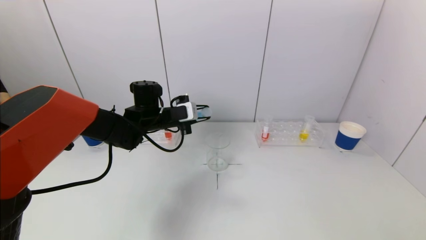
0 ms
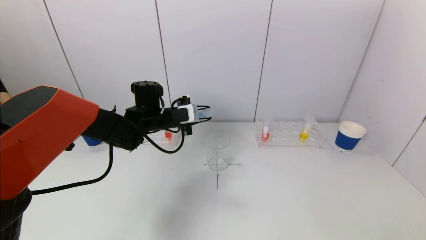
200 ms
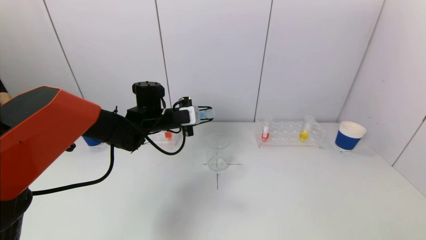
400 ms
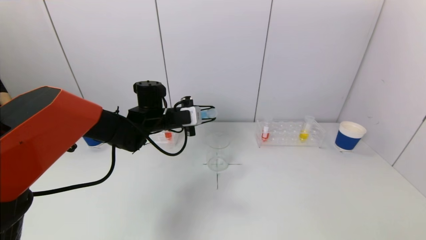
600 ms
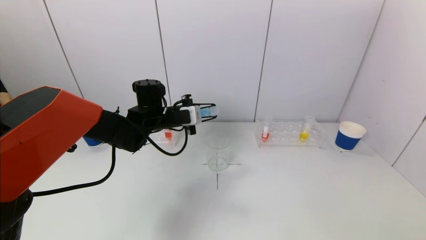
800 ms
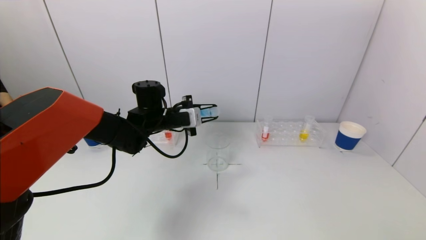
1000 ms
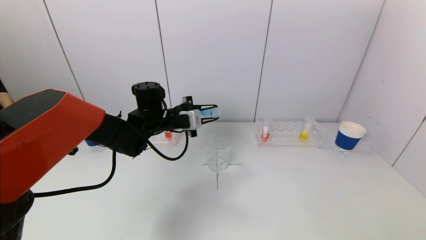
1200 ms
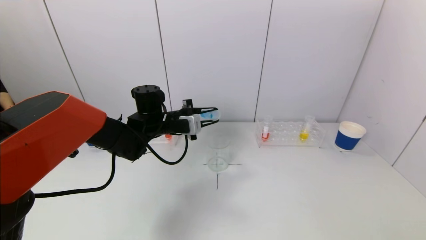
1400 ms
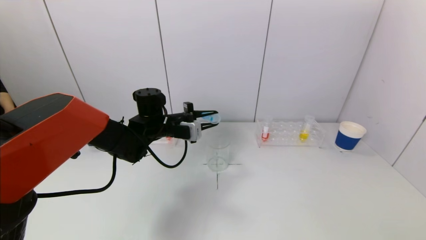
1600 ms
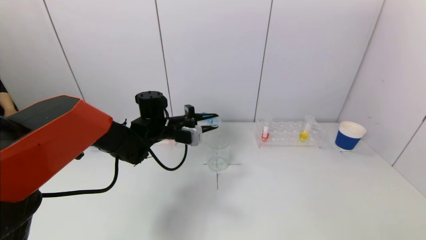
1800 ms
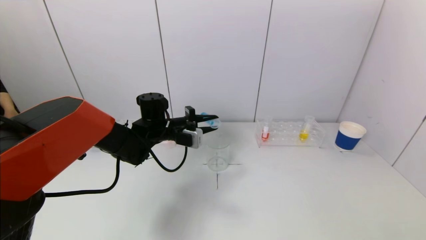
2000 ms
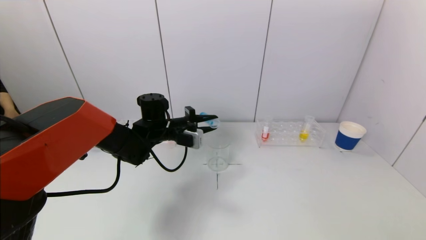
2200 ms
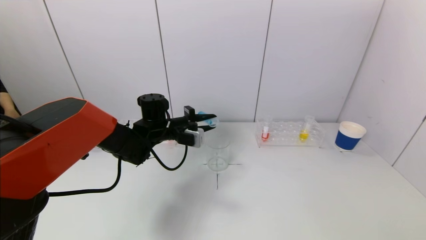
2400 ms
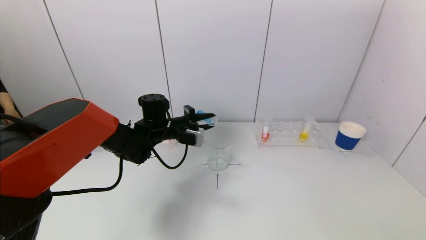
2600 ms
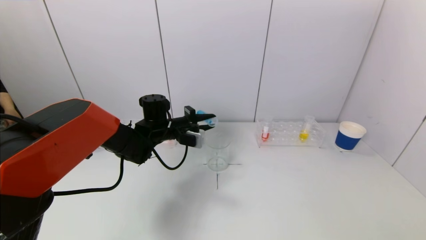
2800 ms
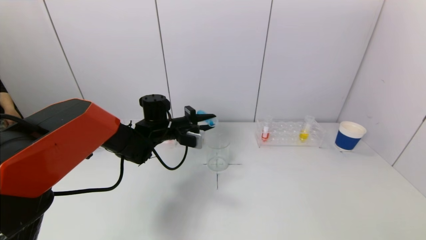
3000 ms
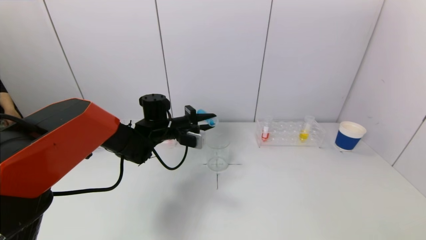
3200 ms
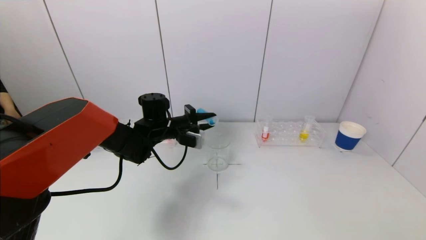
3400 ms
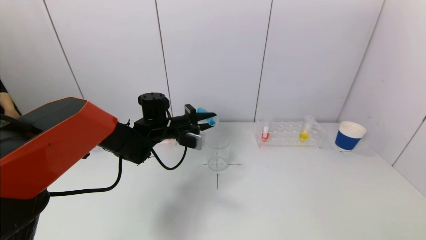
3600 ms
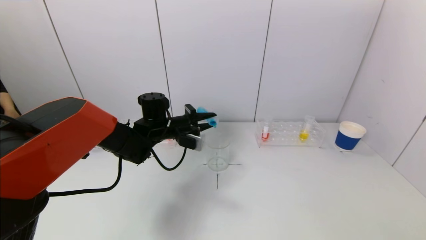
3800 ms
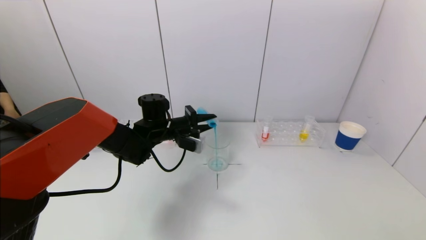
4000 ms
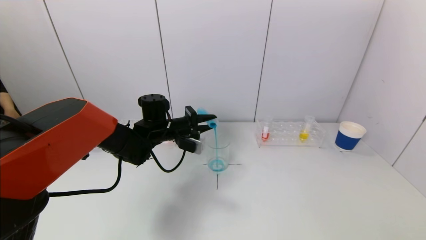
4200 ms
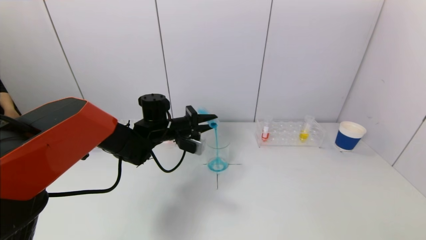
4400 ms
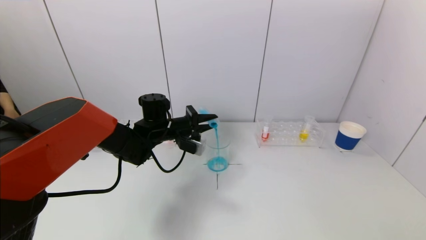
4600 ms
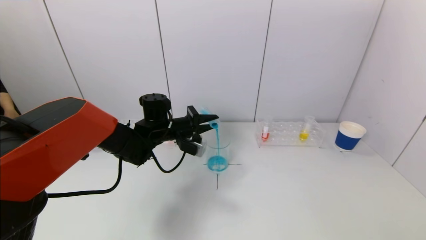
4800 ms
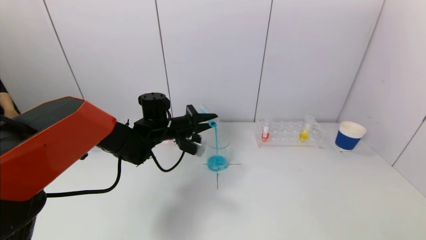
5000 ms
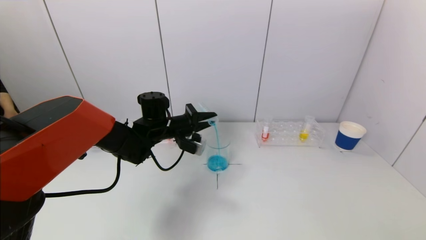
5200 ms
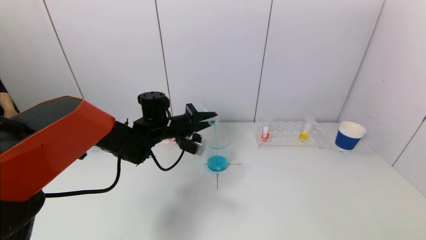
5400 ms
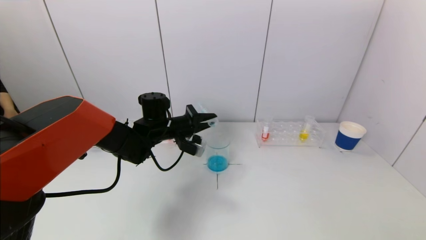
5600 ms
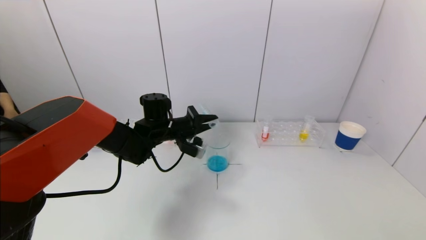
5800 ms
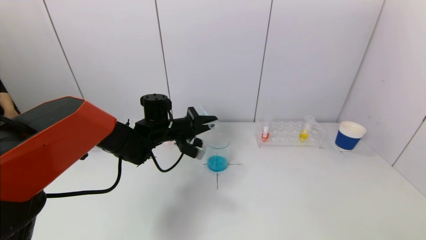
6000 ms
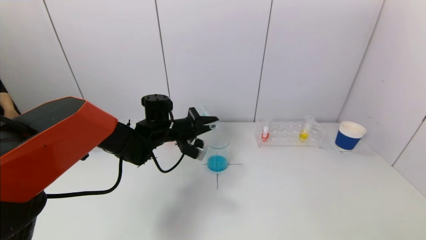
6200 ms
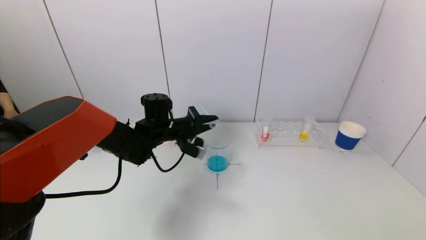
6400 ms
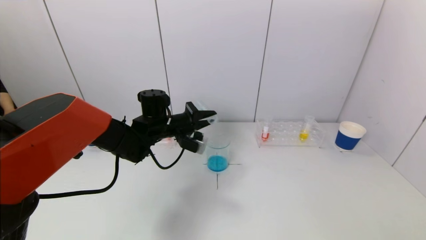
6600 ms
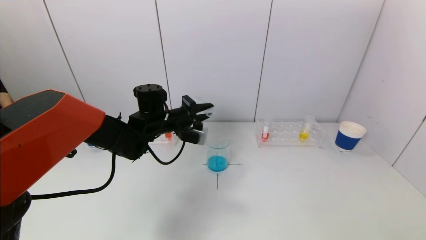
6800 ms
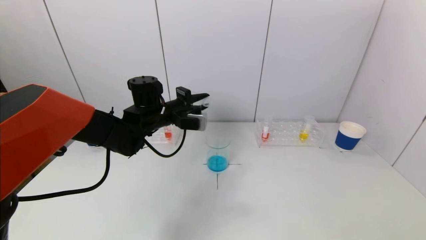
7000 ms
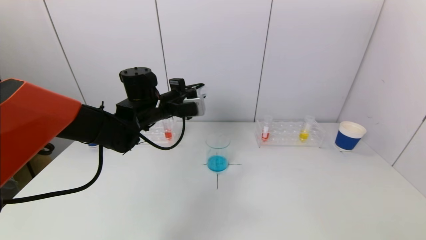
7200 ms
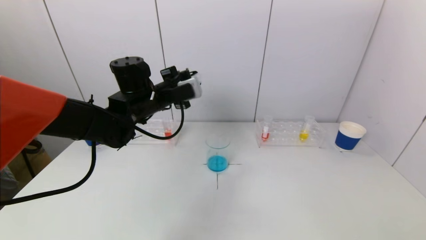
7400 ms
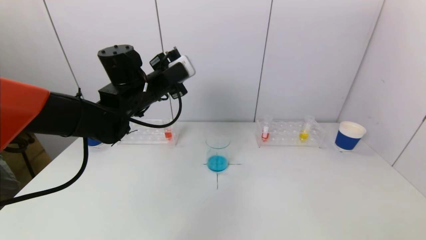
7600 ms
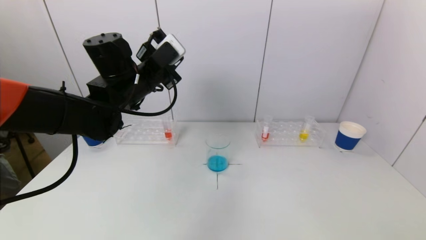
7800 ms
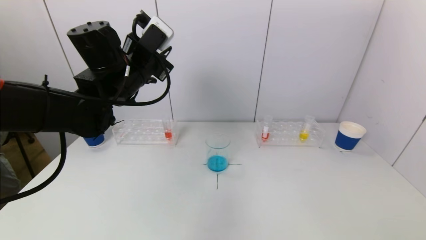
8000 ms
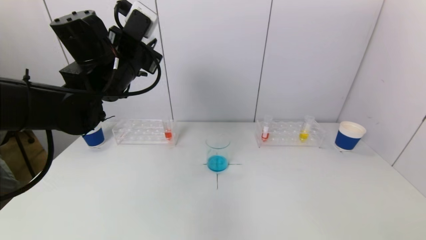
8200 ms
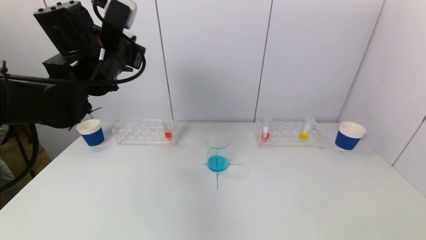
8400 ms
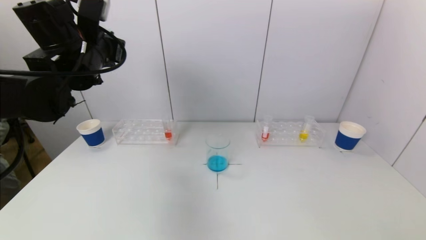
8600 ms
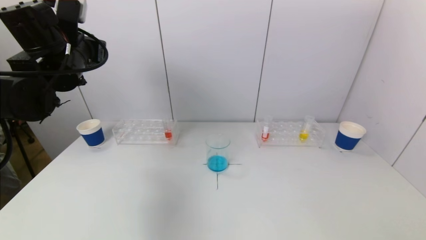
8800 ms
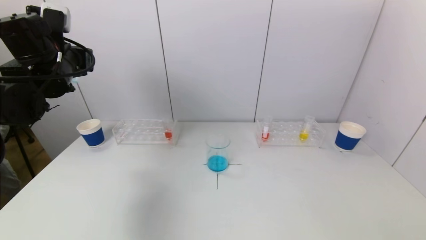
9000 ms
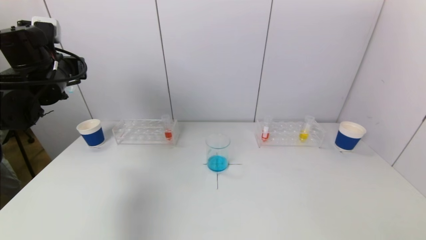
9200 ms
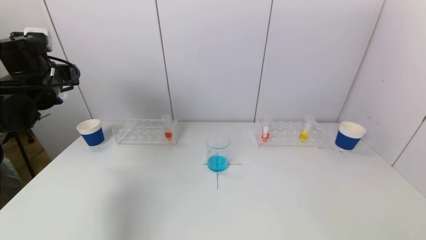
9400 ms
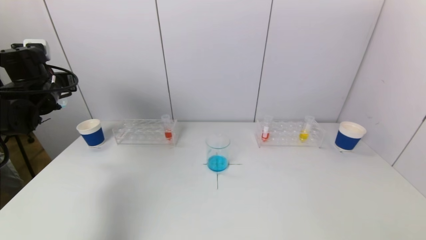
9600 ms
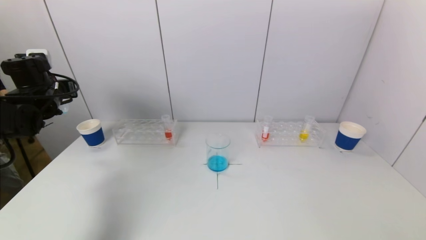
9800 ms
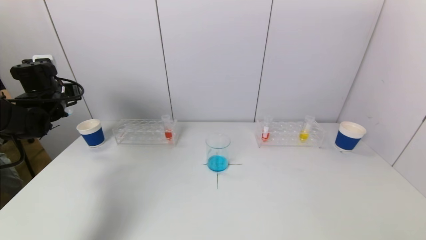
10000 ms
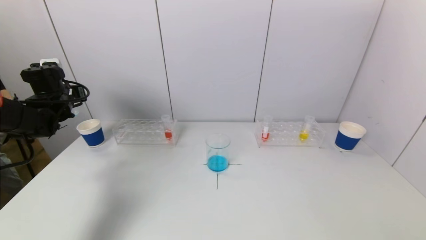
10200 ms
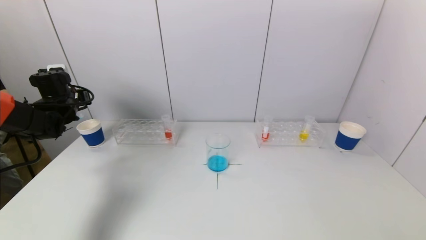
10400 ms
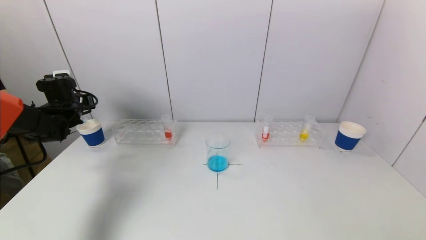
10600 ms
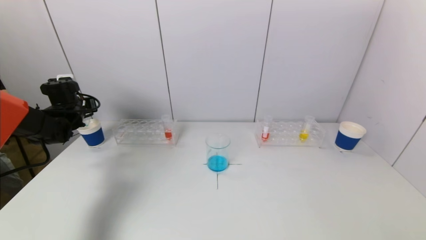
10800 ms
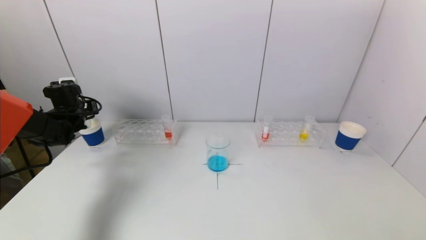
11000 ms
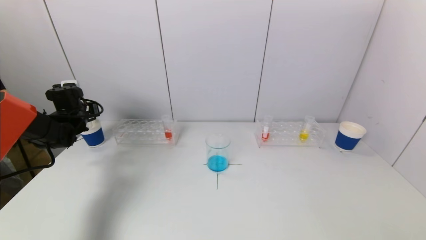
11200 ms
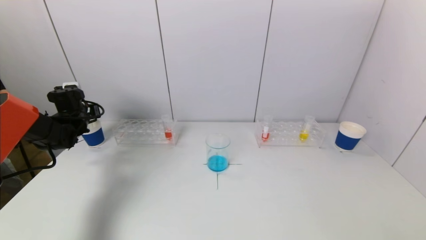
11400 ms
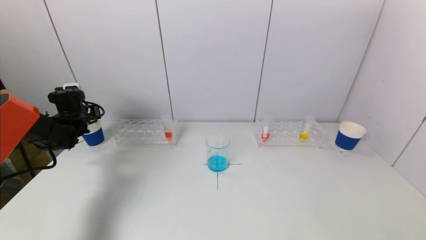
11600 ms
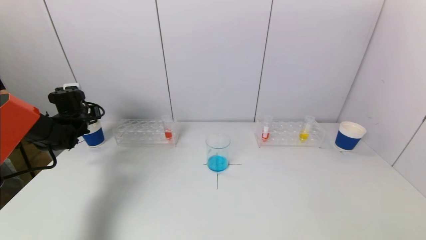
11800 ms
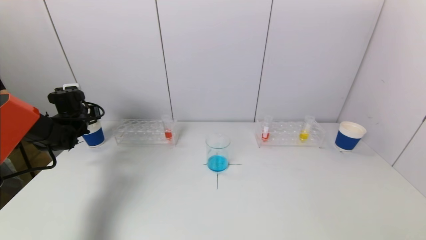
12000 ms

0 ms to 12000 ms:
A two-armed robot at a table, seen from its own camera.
Task of the whole recording: pick up a test tube with pigment on left test tube rack and a test tube with pigment on right test tube rack by grippers and pour them into the beaker.
Step, 0 ms to 5600 ms: Pour the blue reagent into the graduated cylinder with the left gripper.
0 ms to 1600 ms: The grippers move only a little.
1600 ms to 3000 ms: The grippers make only small movements.
3000 ms to 6000 ms: The grippers stay close to where they were, moving slightly.
6000 ms to 7600 ms: The left gripper heads upward, covering roughly 15 cm.
7600 ms to 9000 ms: The left gripper is displaced to the left by about 15 cm.
9000 ms to 10400 ms: The left gripper is displaced downward, to the left and forward by some 20 cm.
10400 ms to 12000 ms: The left gripper travels downward by about 5 cm.

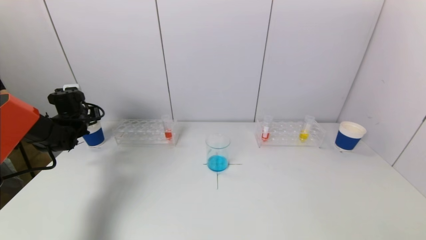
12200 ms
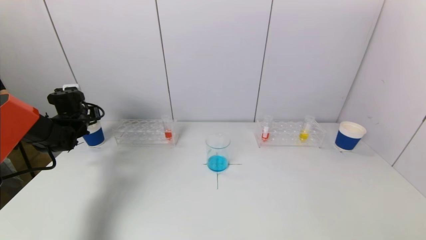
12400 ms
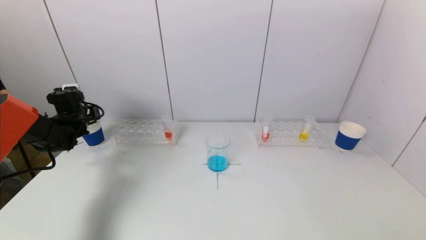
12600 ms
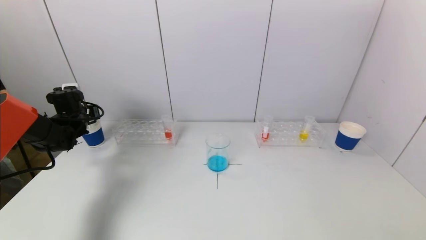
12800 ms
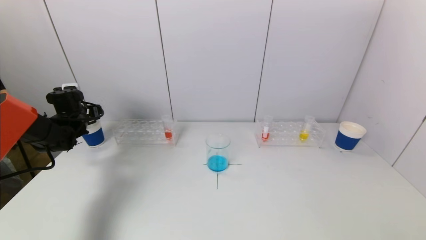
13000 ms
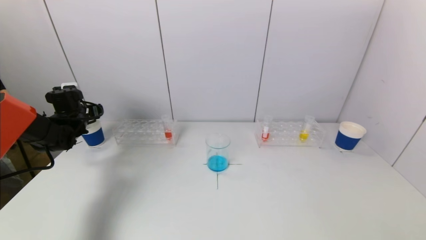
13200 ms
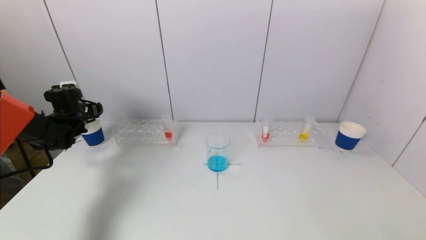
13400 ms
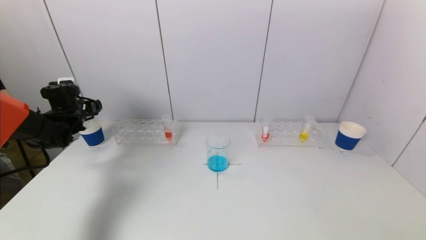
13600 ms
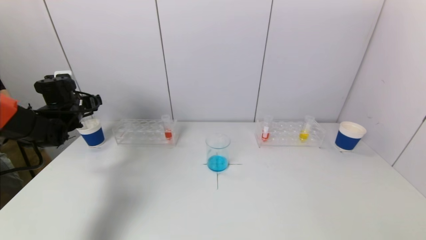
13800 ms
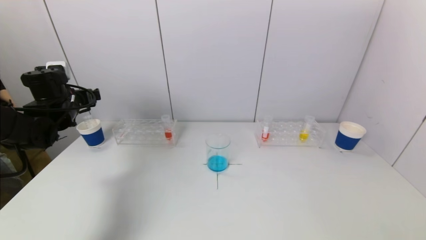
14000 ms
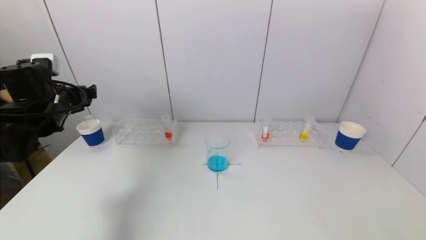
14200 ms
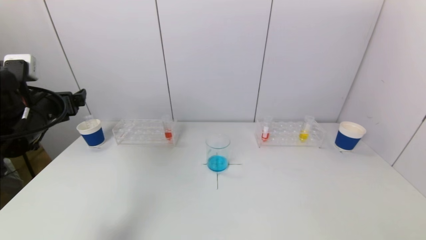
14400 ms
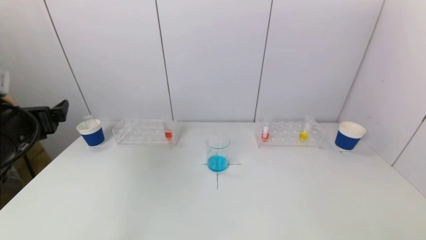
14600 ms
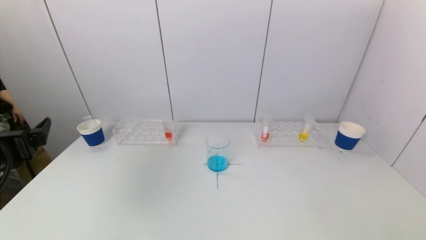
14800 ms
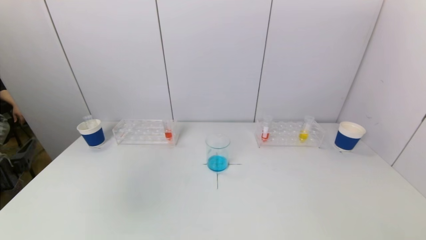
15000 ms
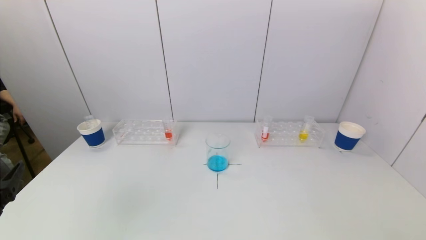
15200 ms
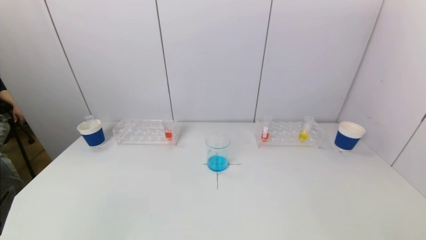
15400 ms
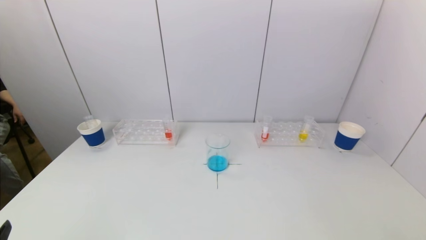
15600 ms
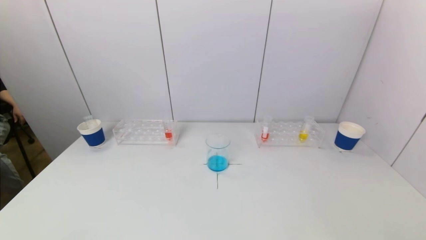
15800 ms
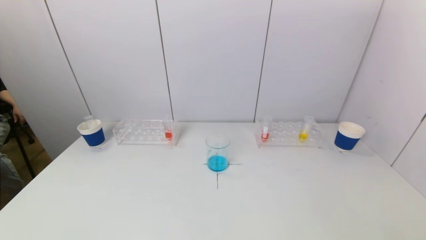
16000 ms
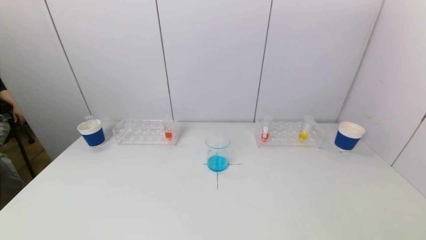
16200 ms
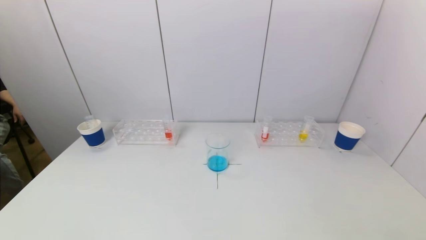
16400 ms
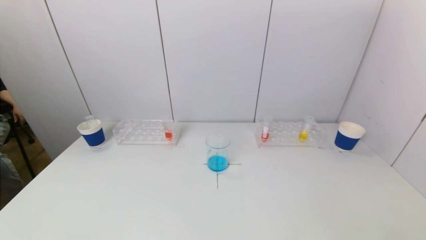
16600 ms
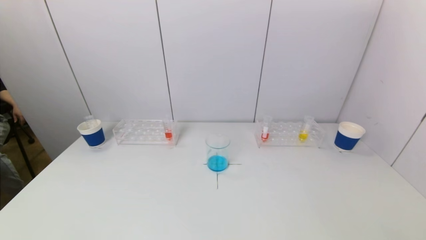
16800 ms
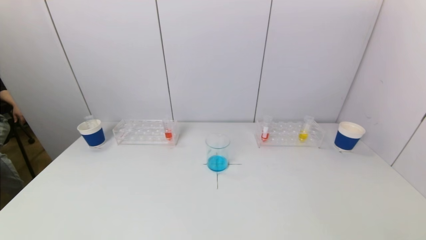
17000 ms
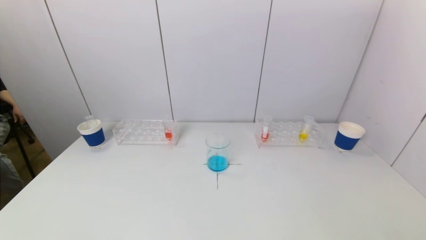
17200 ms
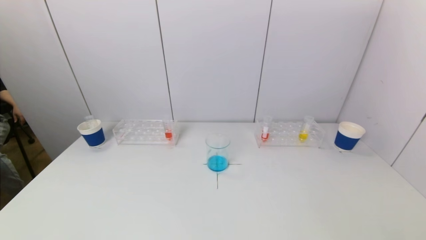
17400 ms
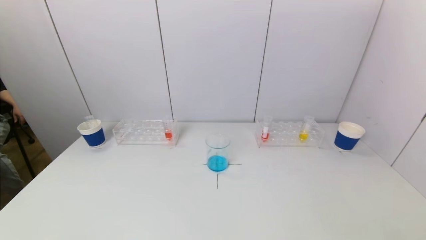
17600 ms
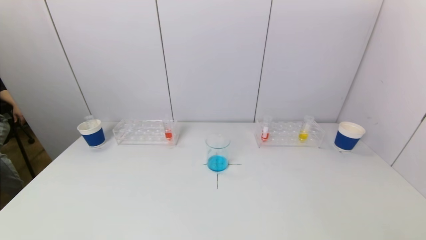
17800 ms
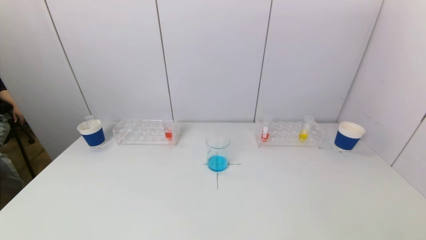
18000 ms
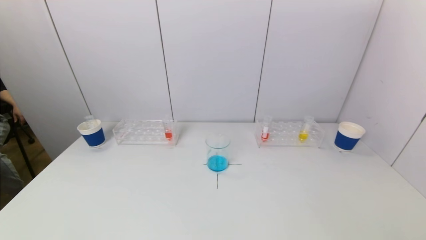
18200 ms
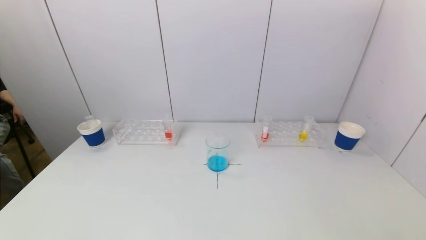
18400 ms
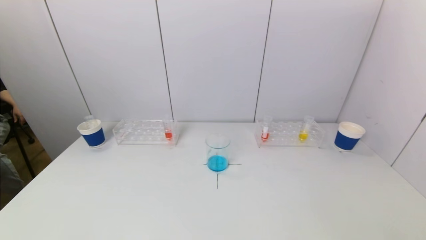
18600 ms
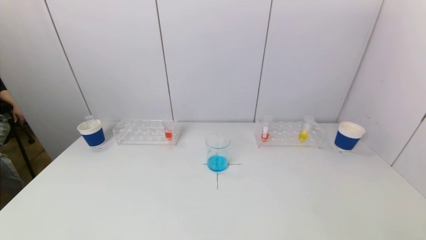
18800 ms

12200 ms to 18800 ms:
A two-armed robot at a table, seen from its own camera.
Task of the whole recording: pick up a test tube with pigment on left test tube rack and a test tube with pigment on right test tube rack by grippers and pour them into the beaker.
12200 ms to 13800 ms: The left gripper ends up some 5 cm from where it was, and opens up.
13800 ms to 15400 ms: The left gripper heads backward, covering roughly 40 cm.
17200 ms to 18800 ms: Both grippers stay put.
